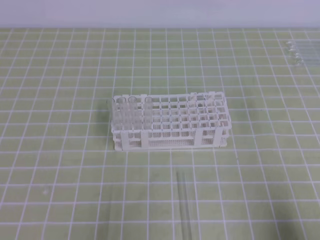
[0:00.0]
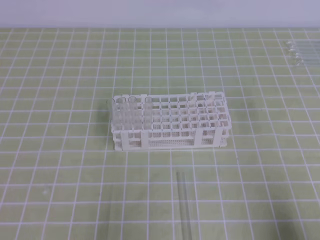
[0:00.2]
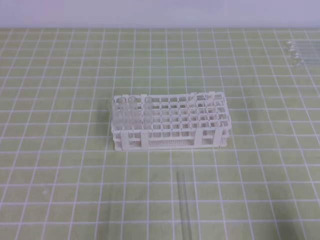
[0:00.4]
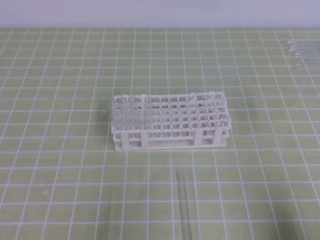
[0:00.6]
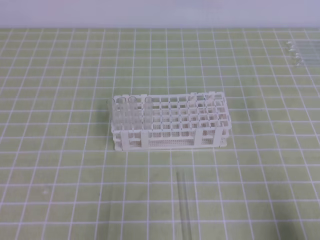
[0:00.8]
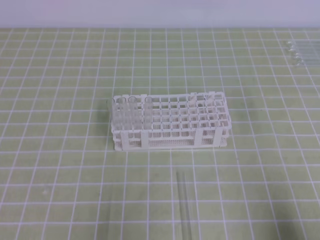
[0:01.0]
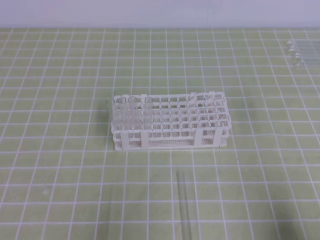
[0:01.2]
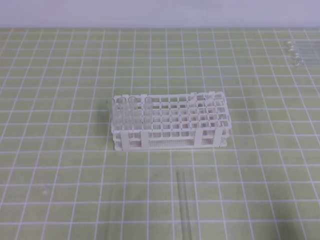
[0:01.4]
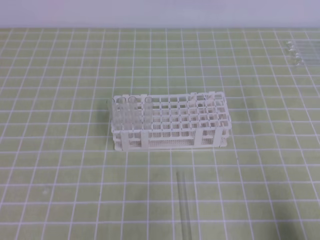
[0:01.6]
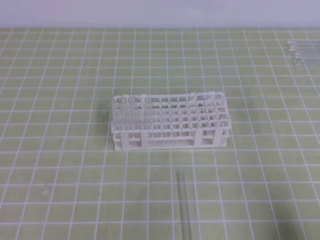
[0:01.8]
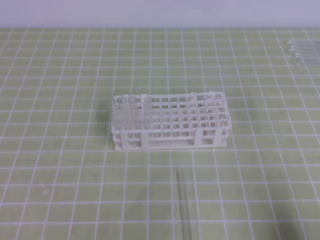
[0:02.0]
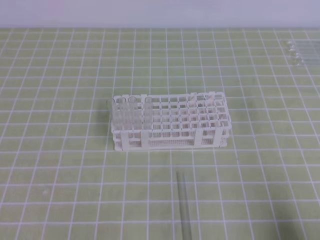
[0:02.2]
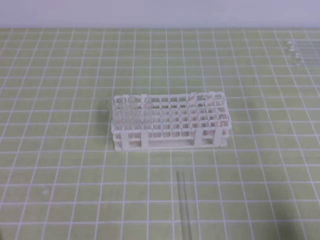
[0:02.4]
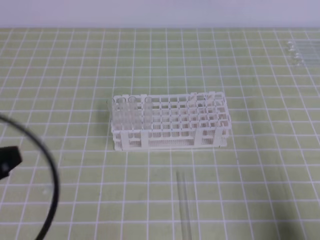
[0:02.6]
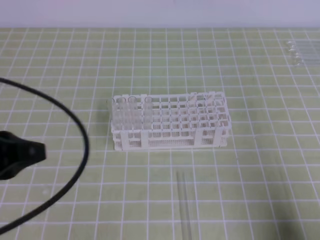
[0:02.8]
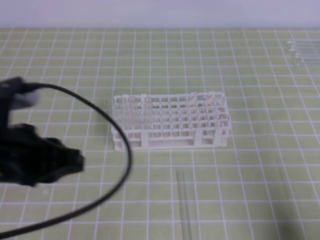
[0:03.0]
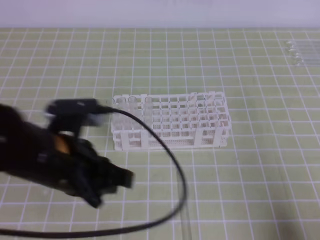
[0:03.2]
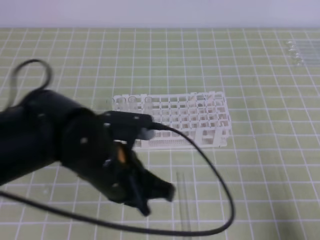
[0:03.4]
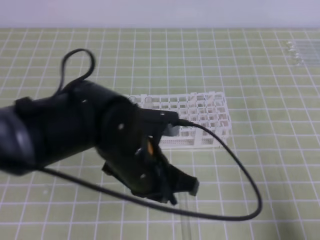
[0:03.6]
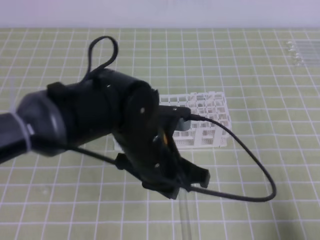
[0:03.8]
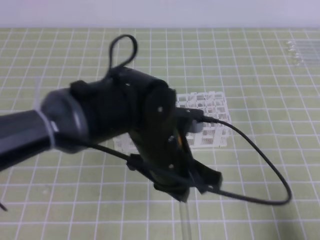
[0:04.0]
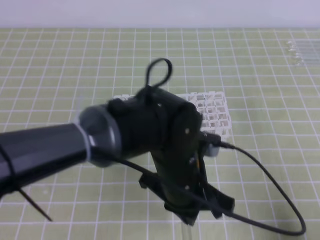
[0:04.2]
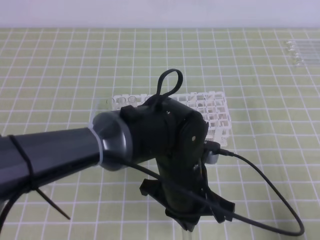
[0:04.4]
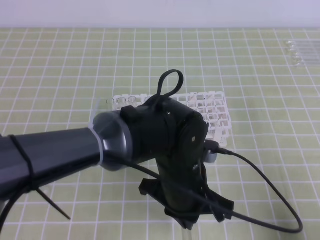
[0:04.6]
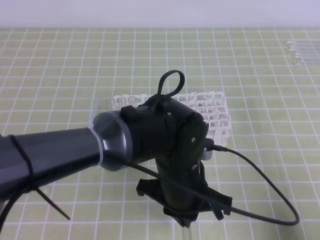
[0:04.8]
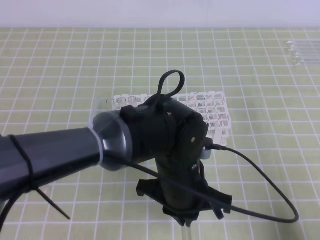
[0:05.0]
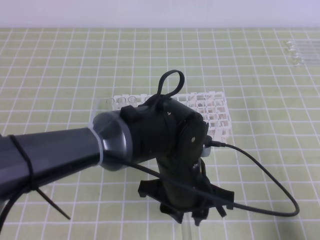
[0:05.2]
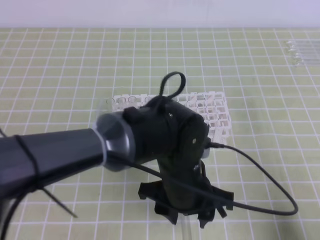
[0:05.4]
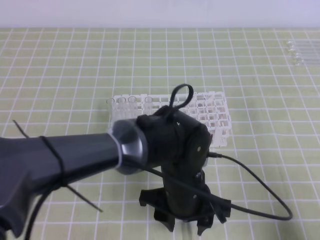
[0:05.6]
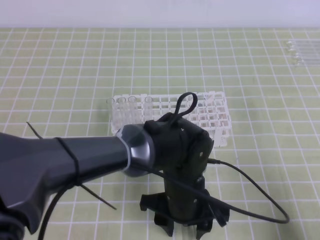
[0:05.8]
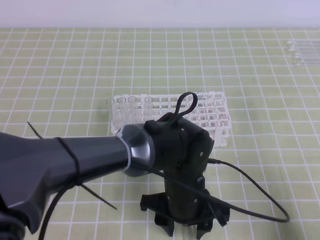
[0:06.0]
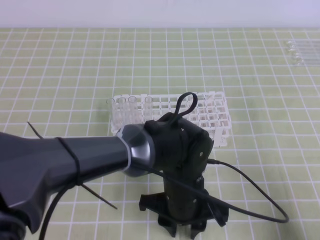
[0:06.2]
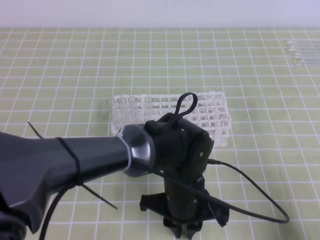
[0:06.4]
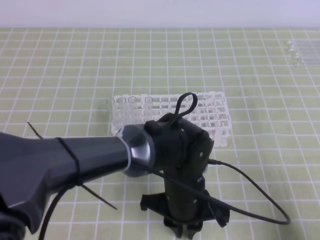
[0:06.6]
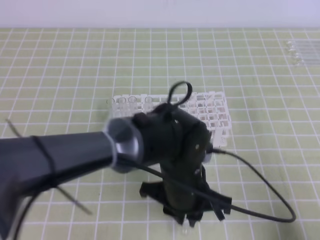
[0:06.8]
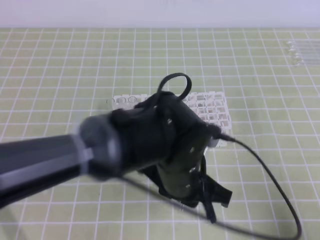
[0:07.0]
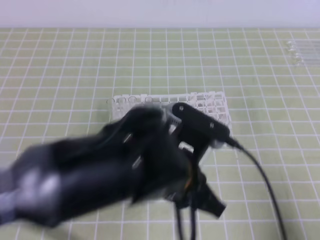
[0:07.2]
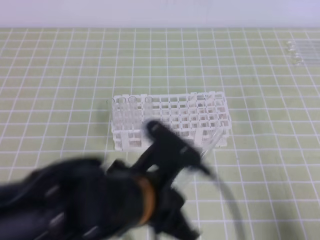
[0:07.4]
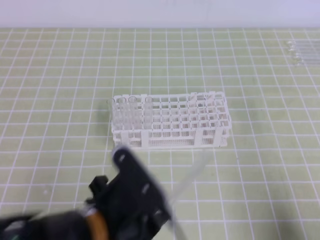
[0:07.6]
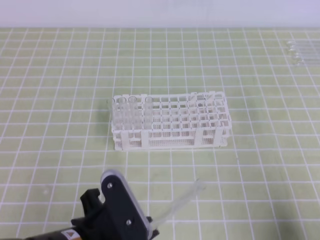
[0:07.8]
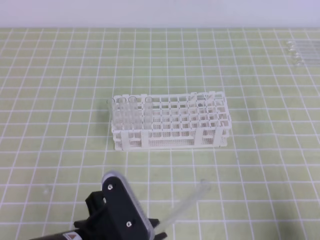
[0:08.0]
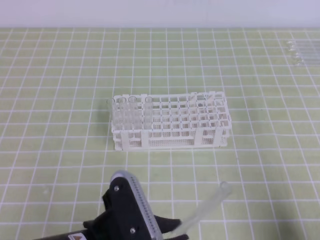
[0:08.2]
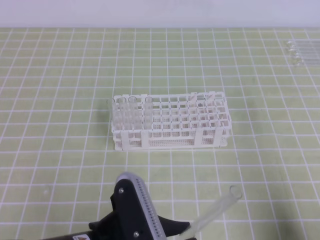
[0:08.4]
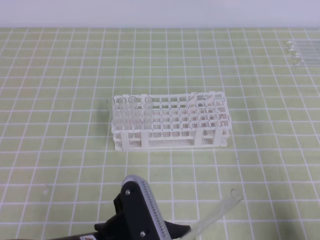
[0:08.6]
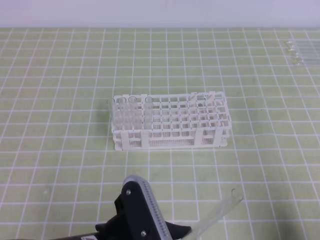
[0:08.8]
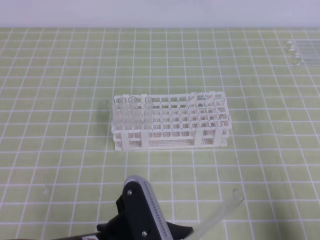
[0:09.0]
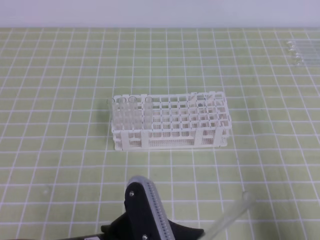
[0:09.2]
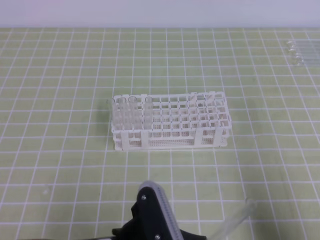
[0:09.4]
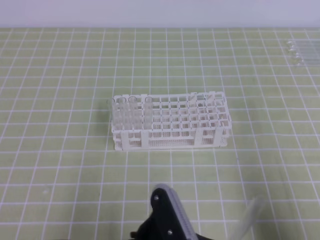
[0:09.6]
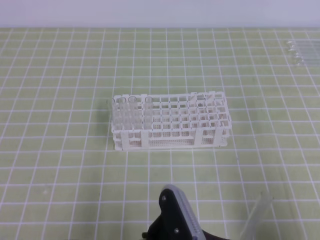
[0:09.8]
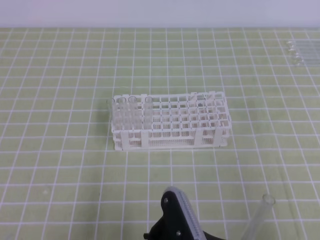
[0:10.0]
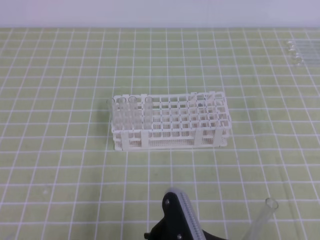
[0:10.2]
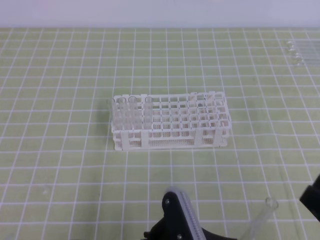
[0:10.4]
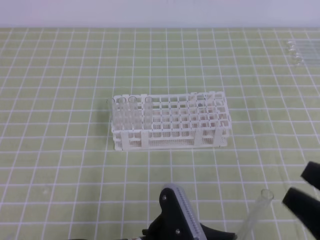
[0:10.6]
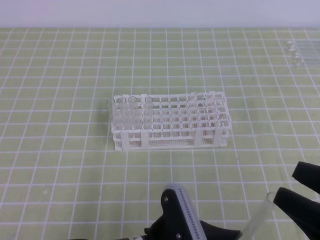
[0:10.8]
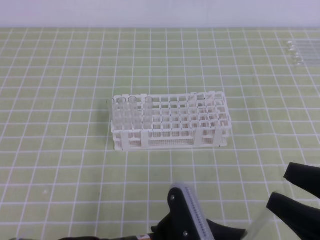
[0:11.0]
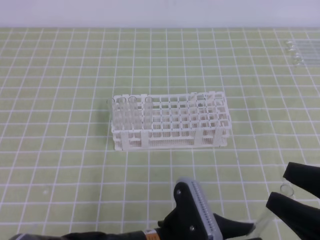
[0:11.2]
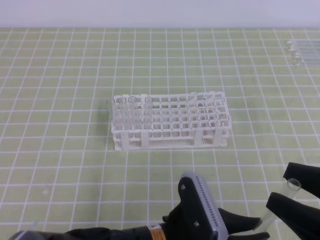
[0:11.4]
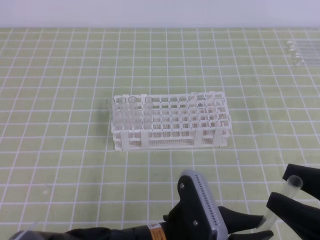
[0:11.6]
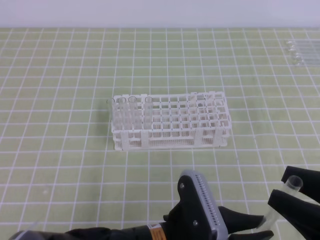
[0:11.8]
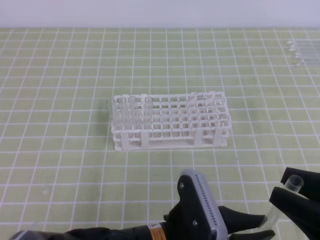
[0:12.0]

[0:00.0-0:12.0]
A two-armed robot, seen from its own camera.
0:01.6 to 0:03.0: The left gripper heads forward, upward and to the right, covering some 20 cm.
0:03.0 to 0:04.4: The left gripper shifts about 25 cm to the right and downward.
0:04.4 to 0:06.0: The left gripper is displaced downward by some 5 cm, and opens up.
0:06.0 to 0:07.6: The left gripper moves to the left, backward and upward, about 15 cm, and closes.
0:09.0 to 0:10.4: The right gripper goes about 10 cm upward and to the left, and opens. The left gripper ends up approximately 5 cm from where it was.
0:10.4 to 0:12.0: The grippers move only a little.

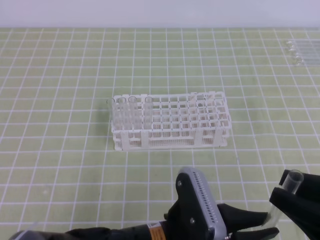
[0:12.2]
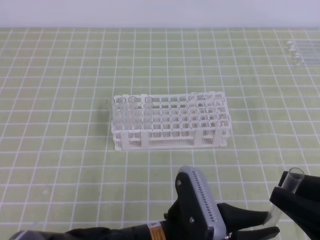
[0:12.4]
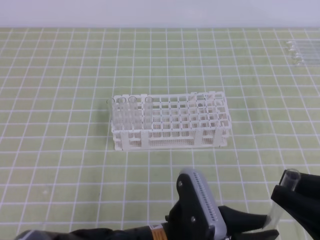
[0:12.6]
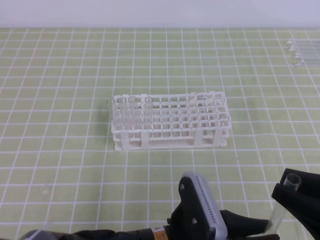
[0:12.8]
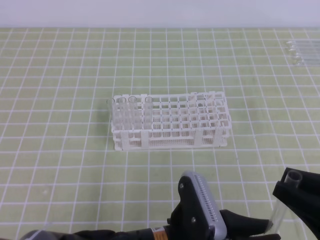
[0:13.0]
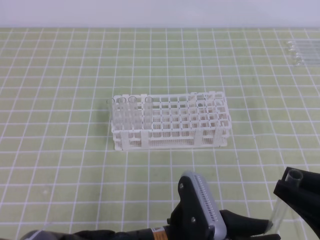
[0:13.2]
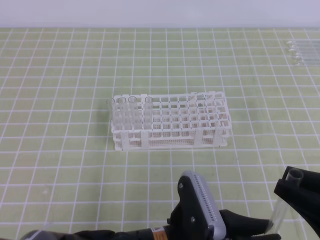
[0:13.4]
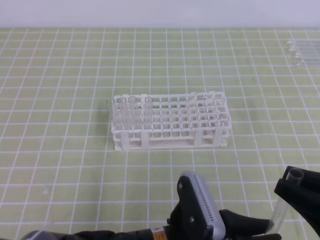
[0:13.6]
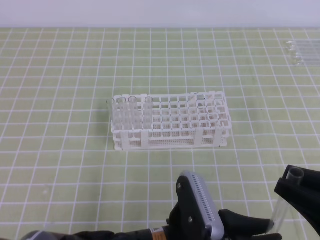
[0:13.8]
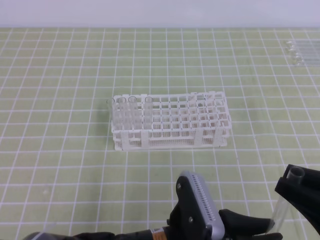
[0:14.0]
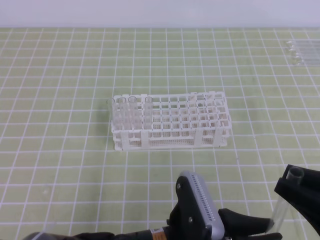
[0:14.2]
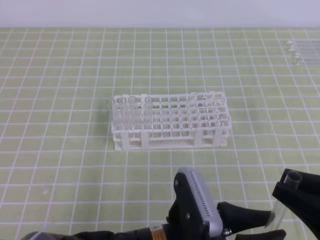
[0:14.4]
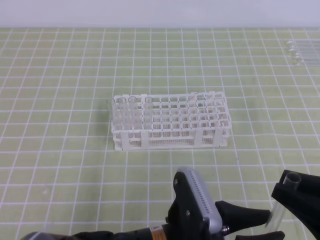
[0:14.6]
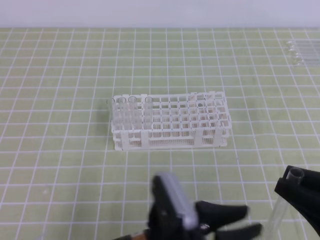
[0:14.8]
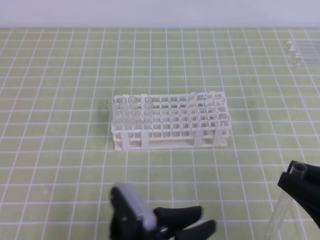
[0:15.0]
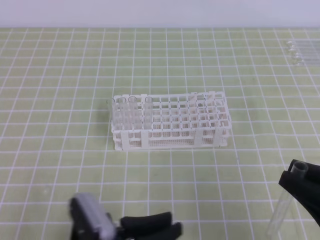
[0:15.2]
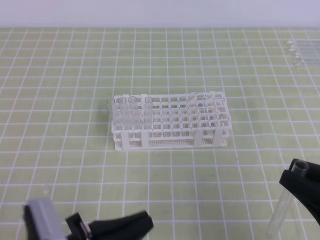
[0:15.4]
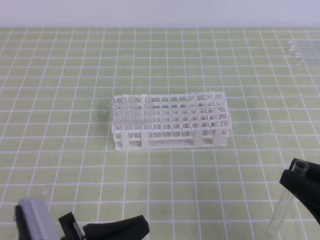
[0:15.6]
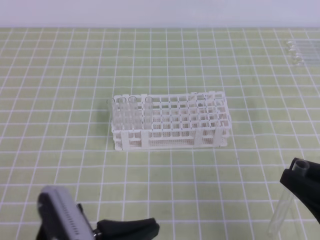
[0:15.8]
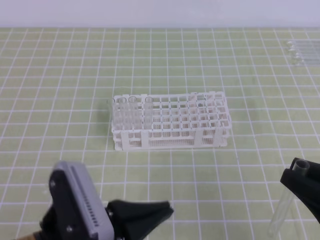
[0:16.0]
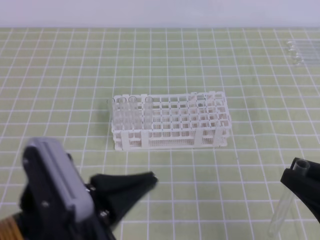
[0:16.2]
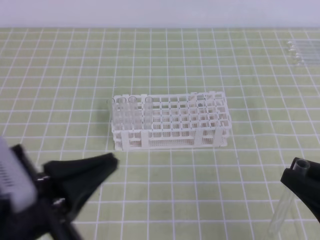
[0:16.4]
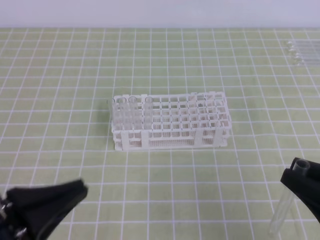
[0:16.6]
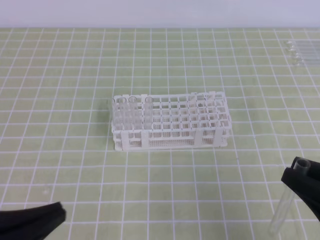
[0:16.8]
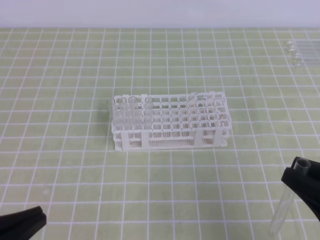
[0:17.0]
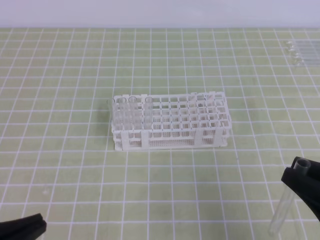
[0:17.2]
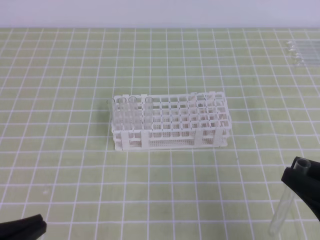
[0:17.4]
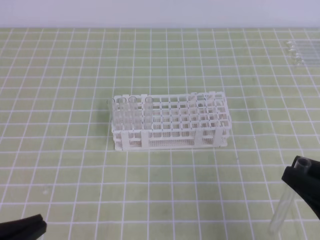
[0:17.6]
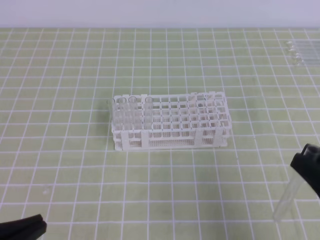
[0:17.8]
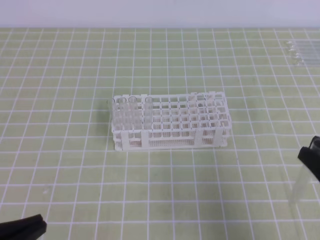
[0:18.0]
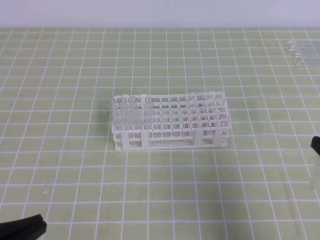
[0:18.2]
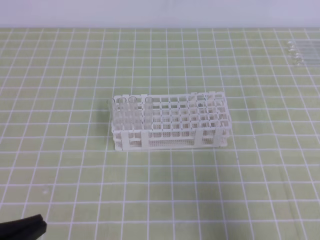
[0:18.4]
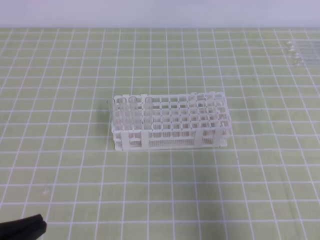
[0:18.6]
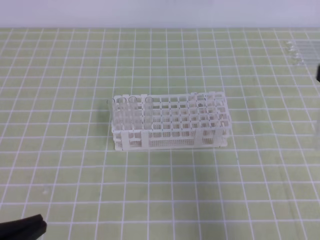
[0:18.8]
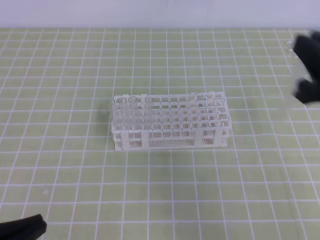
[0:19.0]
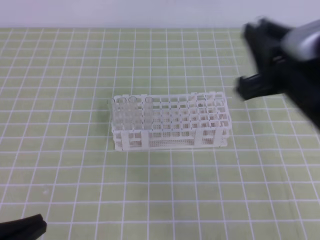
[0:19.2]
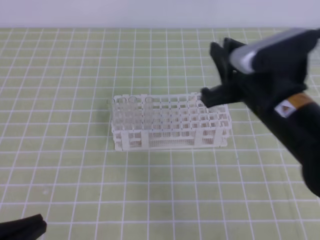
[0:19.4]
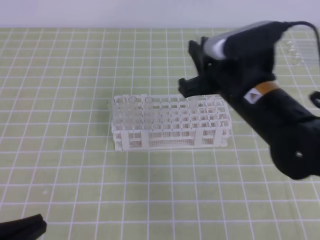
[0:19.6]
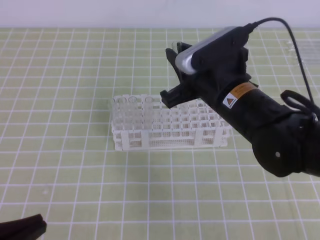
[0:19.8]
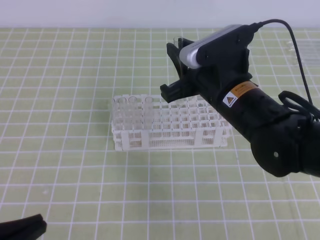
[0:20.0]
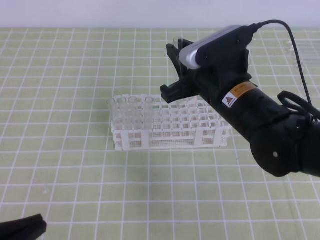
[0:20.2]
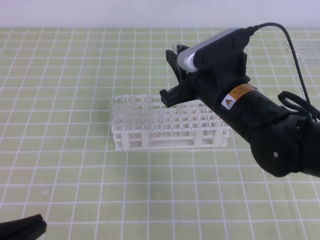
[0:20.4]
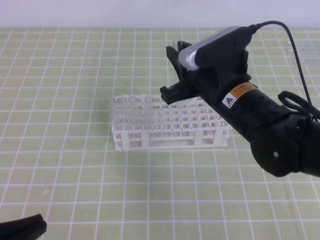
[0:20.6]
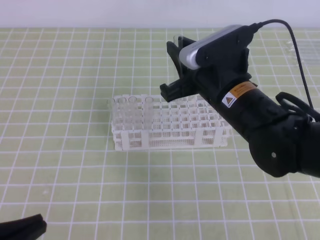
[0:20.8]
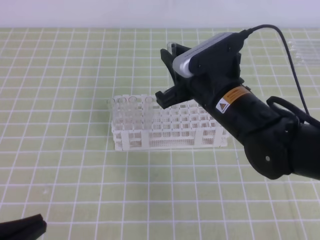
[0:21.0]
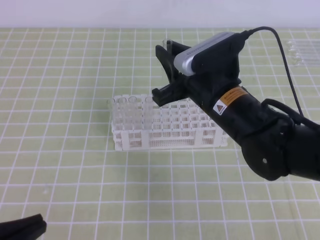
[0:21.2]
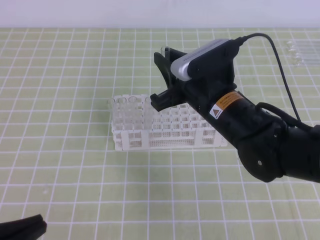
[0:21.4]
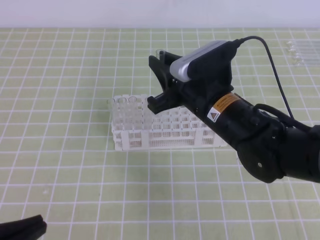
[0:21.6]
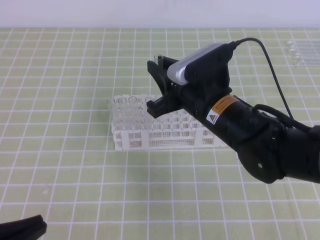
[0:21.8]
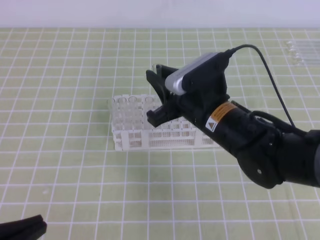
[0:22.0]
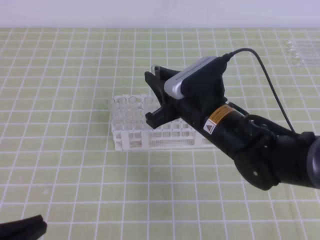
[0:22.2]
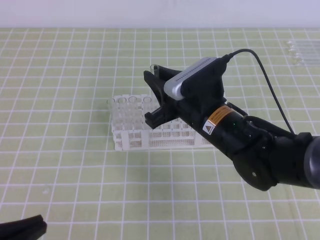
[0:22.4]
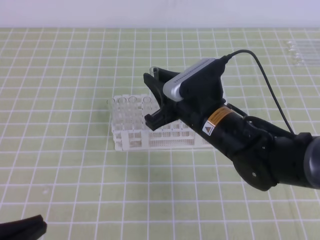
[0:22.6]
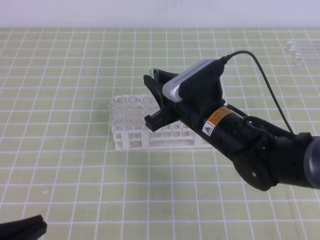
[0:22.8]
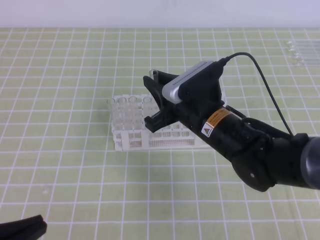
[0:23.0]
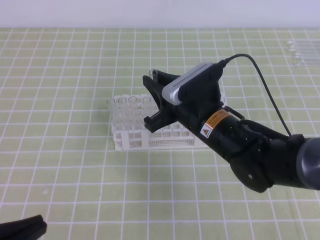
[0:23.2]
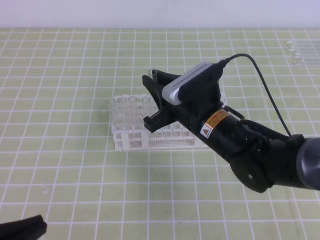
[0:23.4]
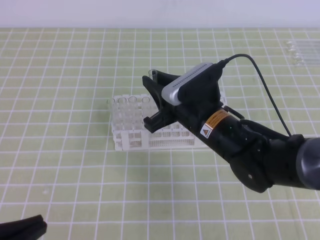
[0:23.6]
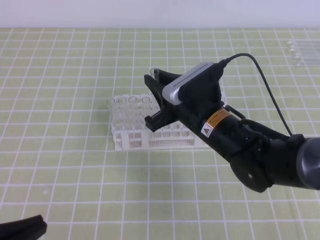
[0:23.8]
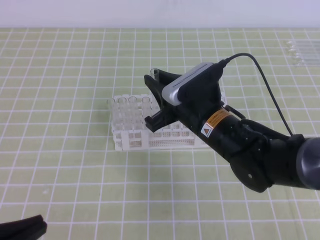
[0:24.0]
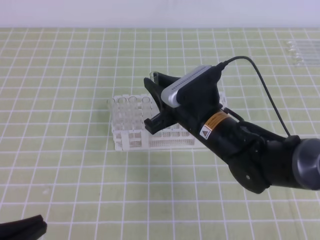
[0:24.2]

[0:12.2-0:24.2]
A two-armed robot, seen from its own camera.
0:12.2 to 0:13.8: The grippers make only small movements.
0:13.8 to 0:15.2: The left gripper heads to the left, covering approximately 10 cm, and opens up.
0:15.2 to 0:16.6: The left gripper goes about 15 cm upward and to the left, and closes up.
0:16.6 to 0:18.2: The left gripper moves approximately 5 cm.
0:18.2 to 0:19.8: The right gripper travels forward and to the left by about 25 cm.
0:19.8 to 0:21.2: The grippers move only a little.
0:21.2 to 0:24.2: The grippers make only small movements.
